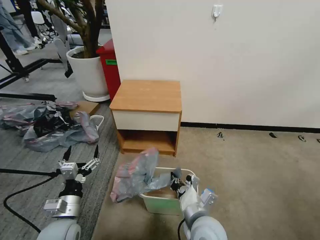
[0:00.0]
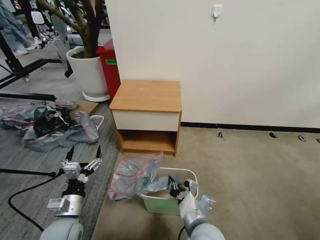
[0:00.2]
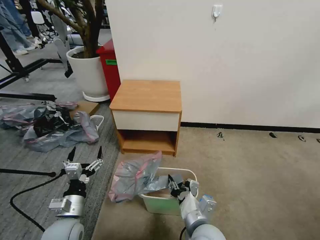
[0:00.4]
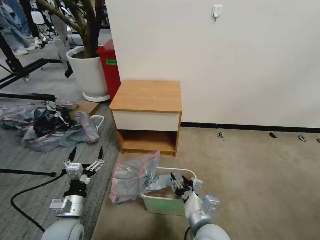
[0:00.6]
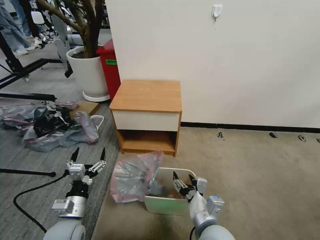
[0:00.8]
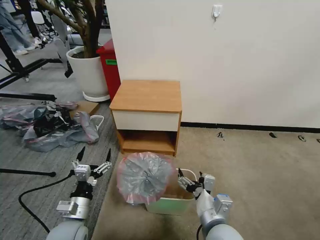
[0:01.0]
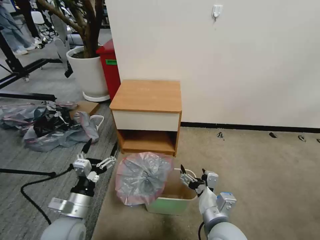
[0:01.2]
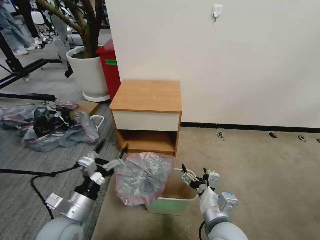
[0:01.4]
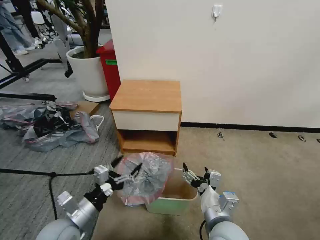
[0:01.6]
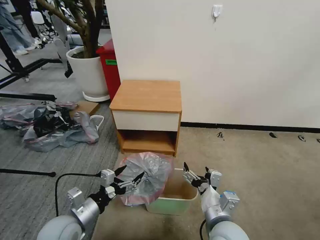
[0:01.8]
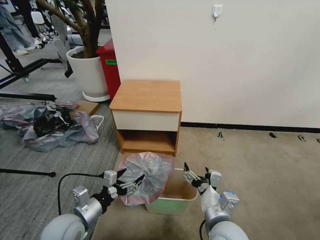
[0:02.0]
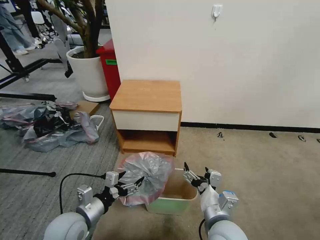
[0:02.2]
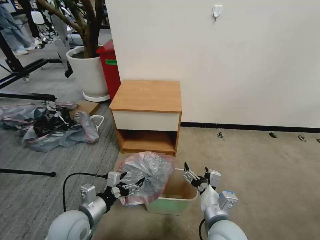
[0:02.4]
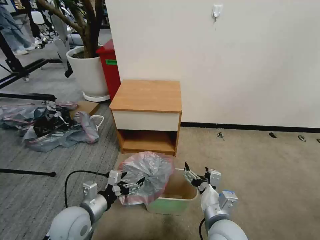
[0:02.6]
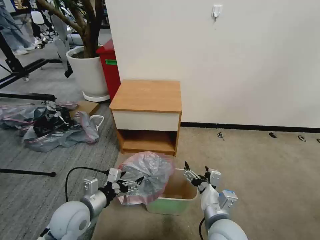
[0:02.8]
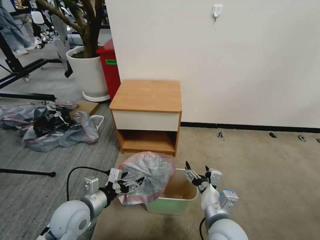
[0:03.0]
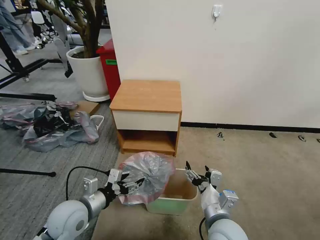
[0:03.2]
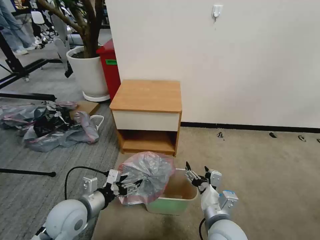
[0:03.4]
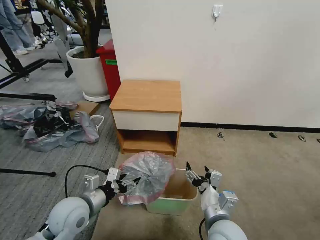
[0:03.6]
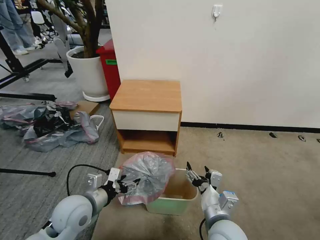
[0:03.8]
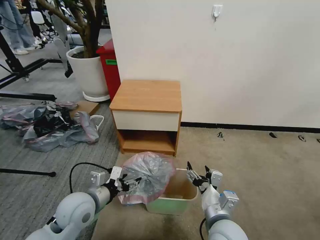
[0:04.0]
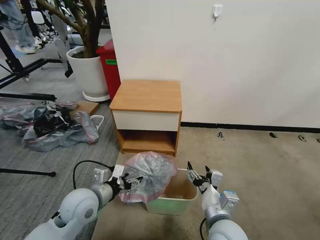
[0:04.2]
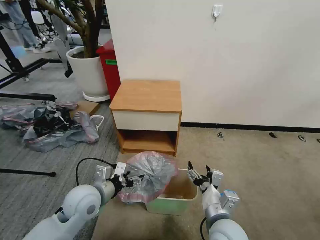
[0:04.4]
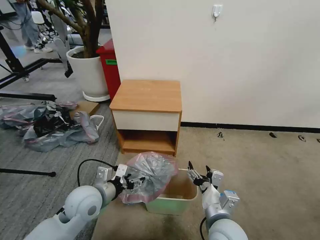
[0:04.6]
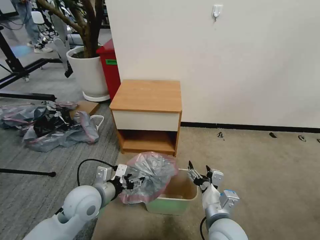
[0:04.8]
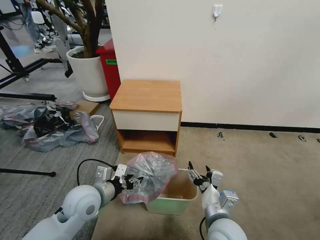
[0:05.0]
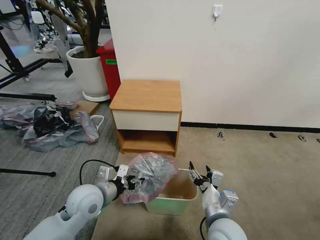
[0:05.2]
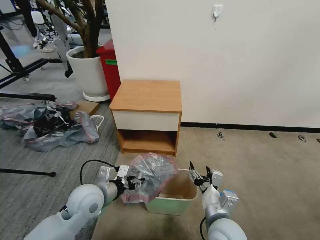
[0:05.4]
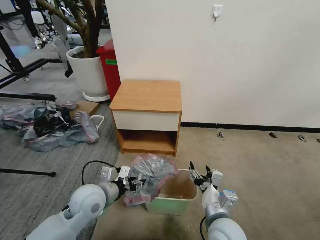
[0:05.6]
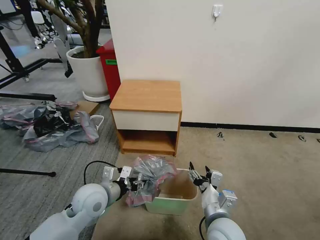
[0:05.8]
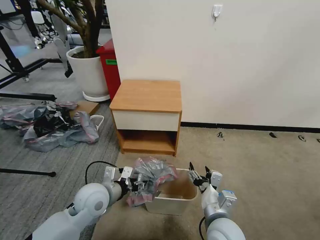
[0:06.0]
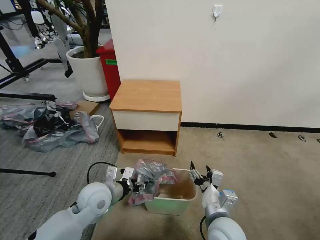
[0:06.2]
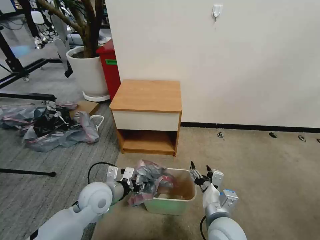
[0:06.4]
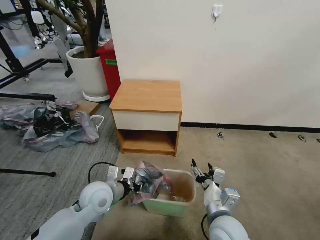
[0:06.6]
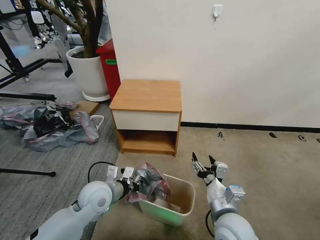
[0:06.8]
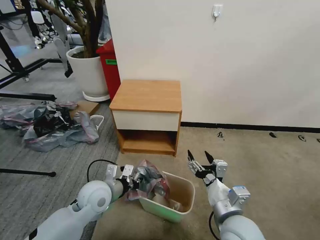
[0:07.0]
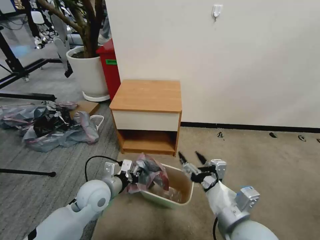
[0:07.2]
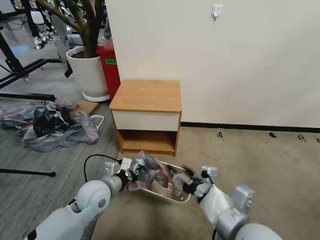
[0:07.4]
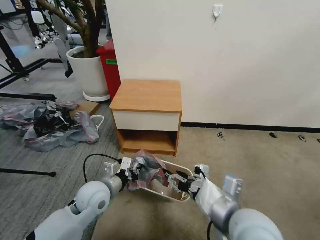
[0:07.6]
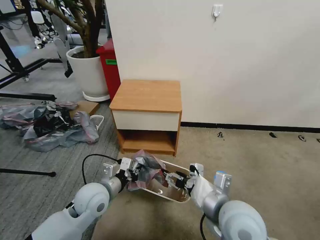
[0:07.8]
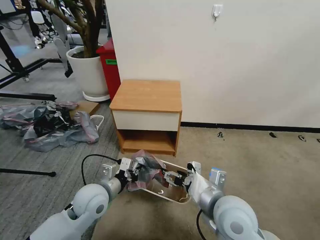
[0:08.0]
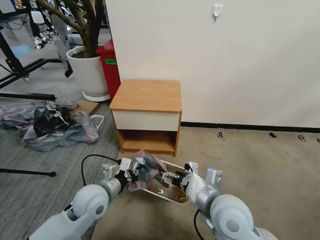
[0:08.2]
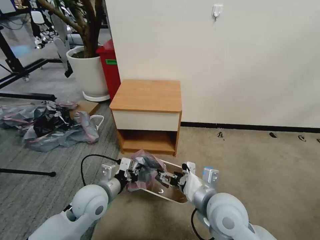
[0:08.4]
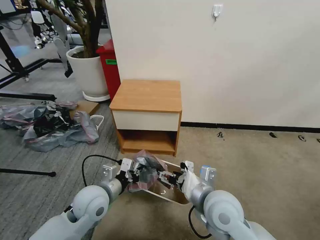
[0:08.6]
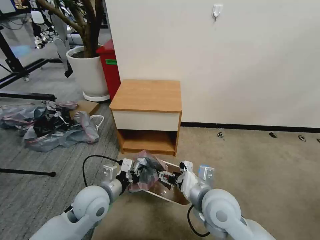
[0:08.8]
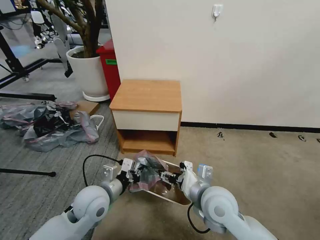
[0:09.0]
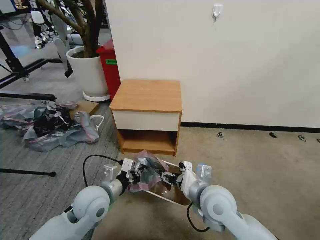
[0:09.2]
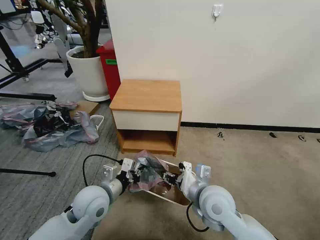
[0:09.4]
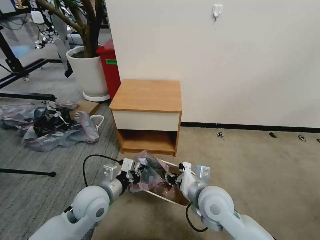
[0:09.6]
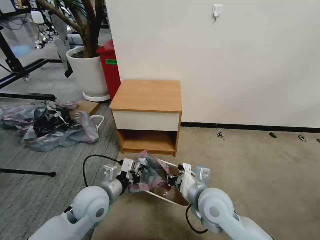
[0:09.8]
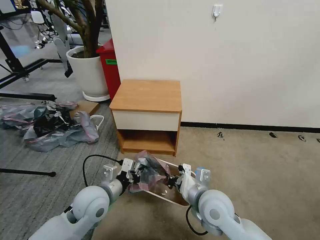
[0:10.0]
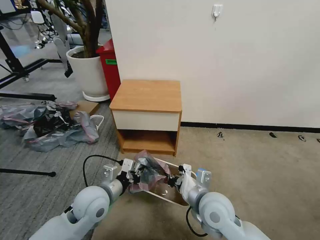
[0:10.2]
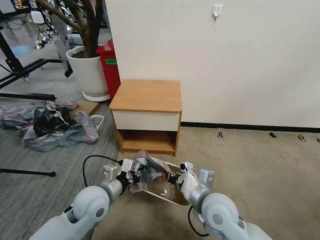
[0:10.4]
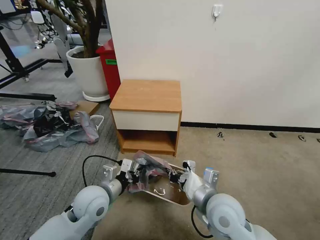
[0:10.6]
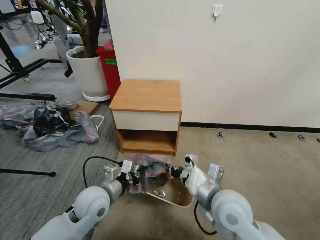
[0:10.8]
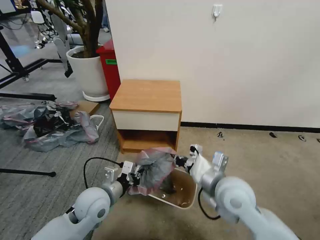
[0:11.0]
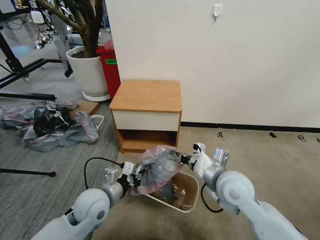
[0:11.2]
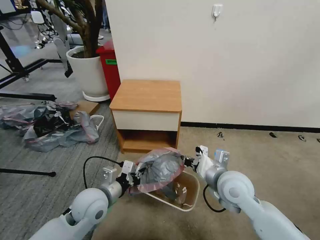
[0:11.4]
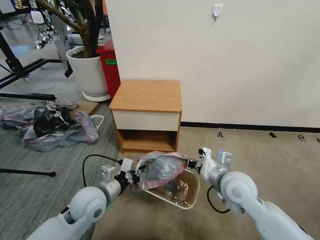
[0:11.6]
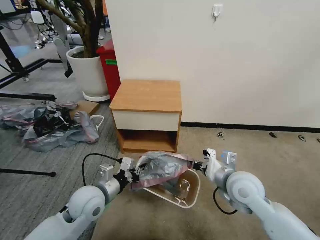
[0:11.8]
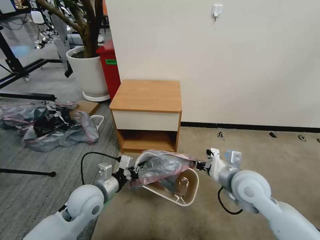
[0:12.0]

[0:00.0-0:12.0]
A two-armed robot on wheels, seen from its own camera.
Task of the whole recording: Pick up the garbage bag from the table and place it over the trash can.
0:00.0 to 0:01.6: The right gripper ends up some 5 cm from where it was, and opens up.
0:03.0 to 0:04.4: The left gripper changes place by some 5 cm.
0:04.4 to 0:06.0: The grippers stay close to where they were, moving slightly.
0:06.0 to 0:07.6: The left gripper closes its fingers, while the right gripper heads upward, covering approximately 15 cm.
0:07.6 to 0:09.0: The right gripper moves forward and downward, approximately 10 cm.
0:09.0 to 0:10.4: The right gripper closes up.
0:10.4 to 0:12.0: The right gripper is displaced to the right and forward by approximately 10 cm.

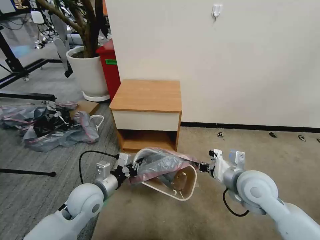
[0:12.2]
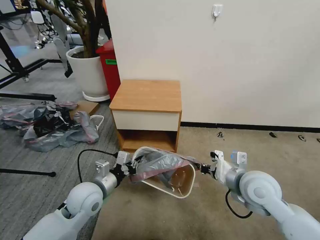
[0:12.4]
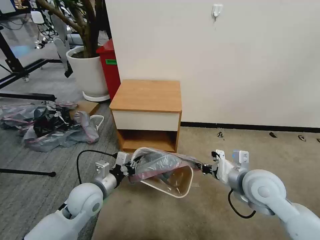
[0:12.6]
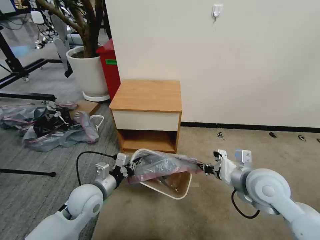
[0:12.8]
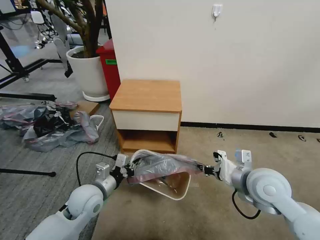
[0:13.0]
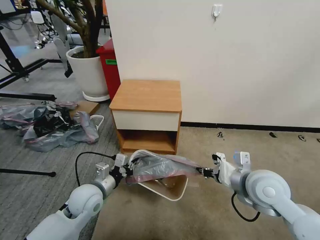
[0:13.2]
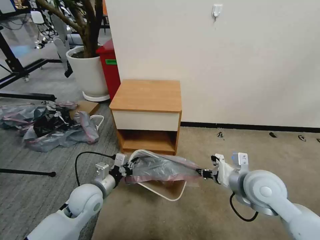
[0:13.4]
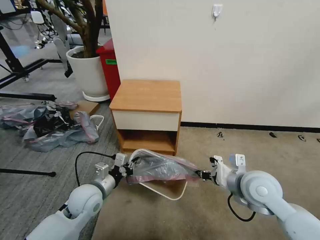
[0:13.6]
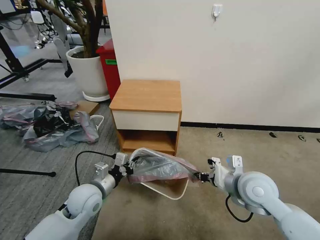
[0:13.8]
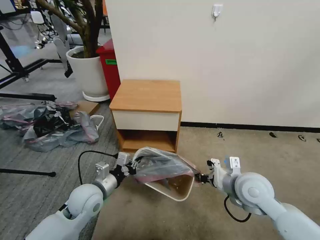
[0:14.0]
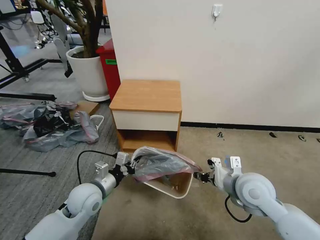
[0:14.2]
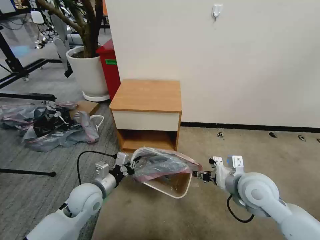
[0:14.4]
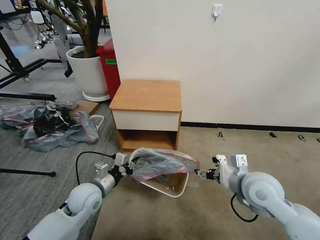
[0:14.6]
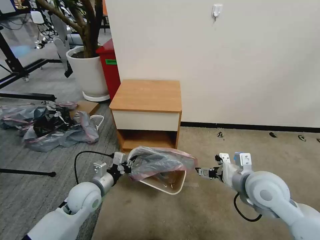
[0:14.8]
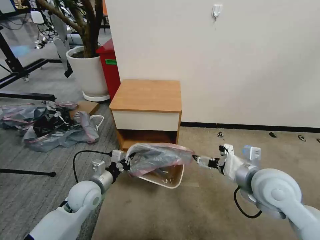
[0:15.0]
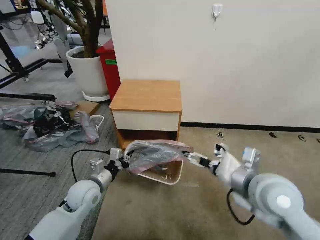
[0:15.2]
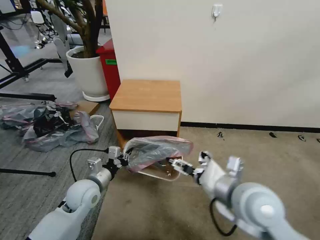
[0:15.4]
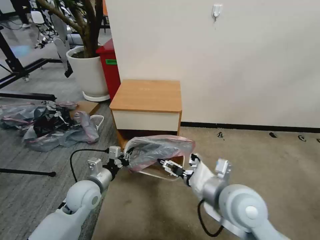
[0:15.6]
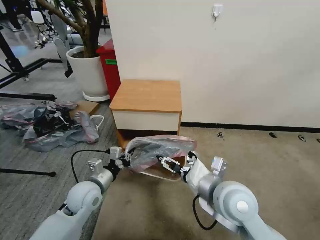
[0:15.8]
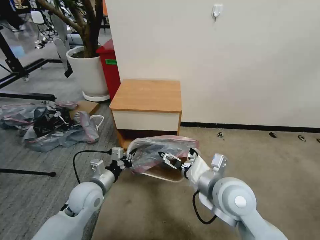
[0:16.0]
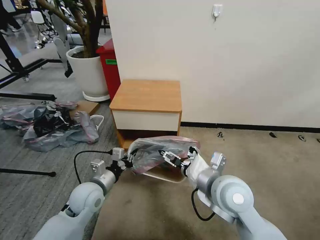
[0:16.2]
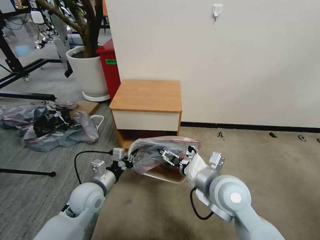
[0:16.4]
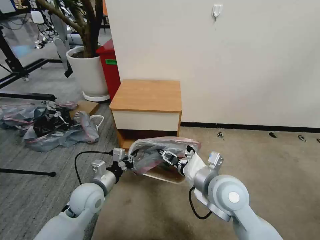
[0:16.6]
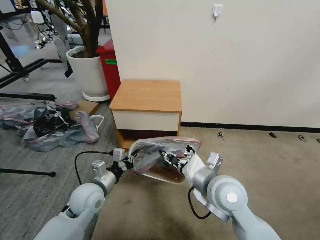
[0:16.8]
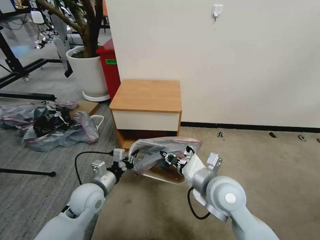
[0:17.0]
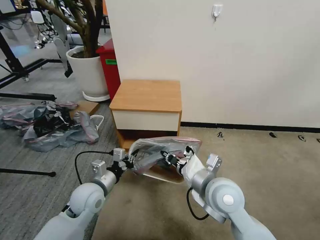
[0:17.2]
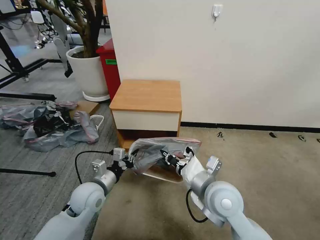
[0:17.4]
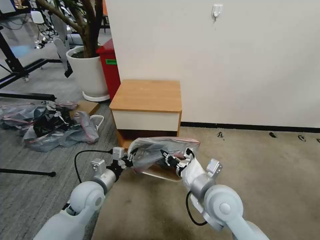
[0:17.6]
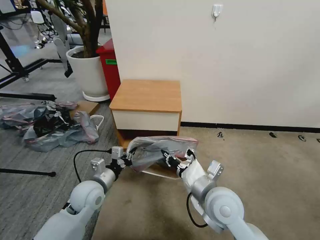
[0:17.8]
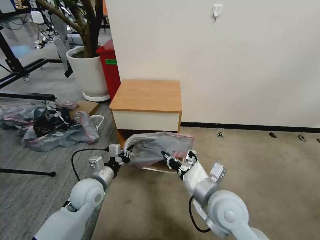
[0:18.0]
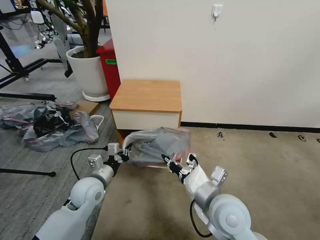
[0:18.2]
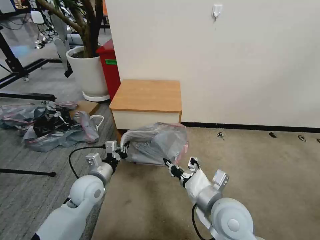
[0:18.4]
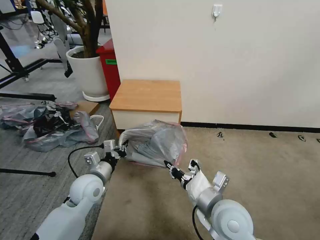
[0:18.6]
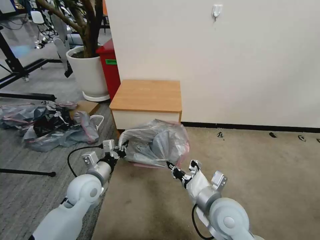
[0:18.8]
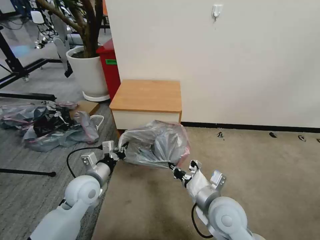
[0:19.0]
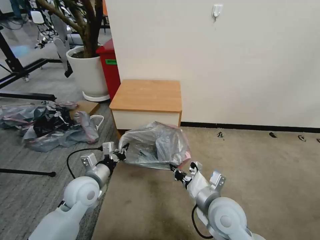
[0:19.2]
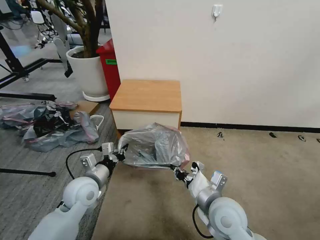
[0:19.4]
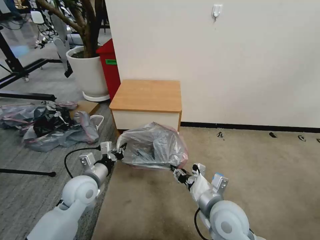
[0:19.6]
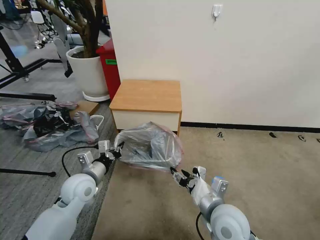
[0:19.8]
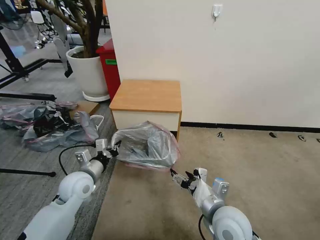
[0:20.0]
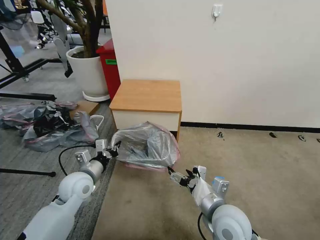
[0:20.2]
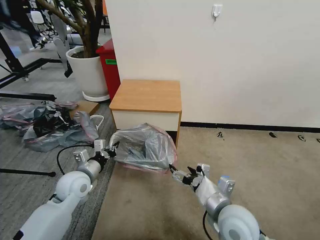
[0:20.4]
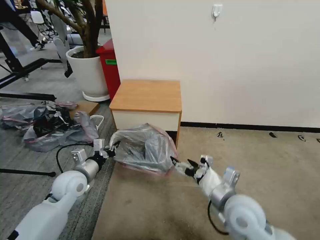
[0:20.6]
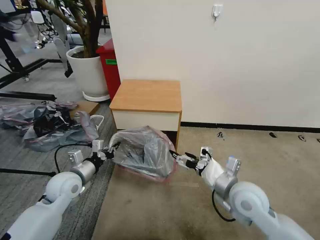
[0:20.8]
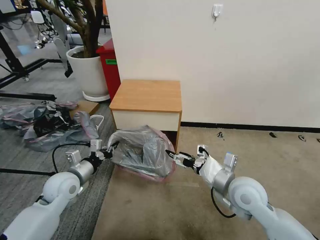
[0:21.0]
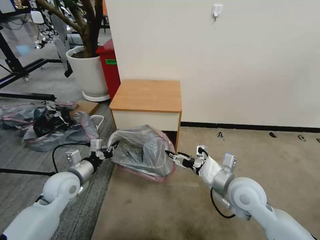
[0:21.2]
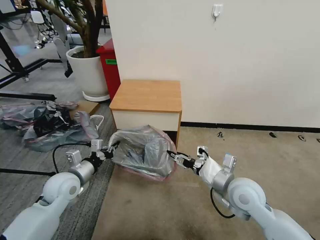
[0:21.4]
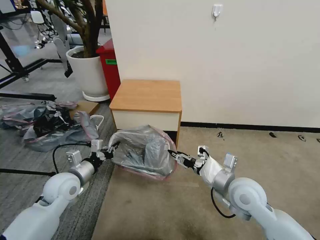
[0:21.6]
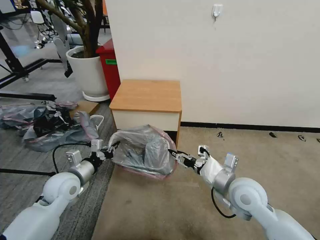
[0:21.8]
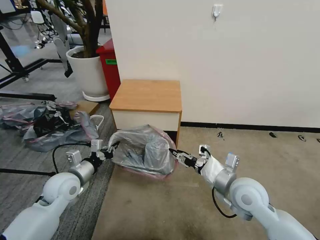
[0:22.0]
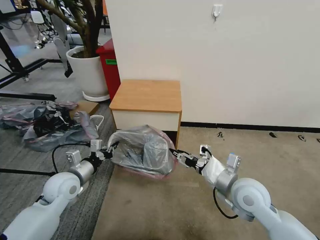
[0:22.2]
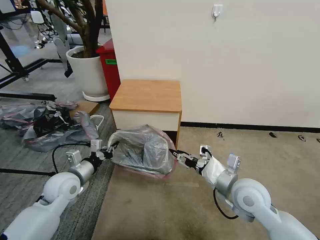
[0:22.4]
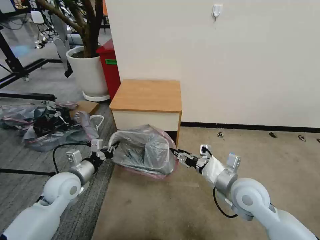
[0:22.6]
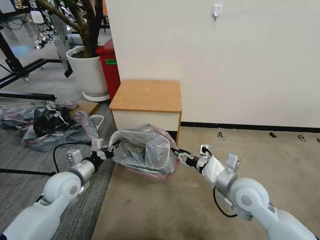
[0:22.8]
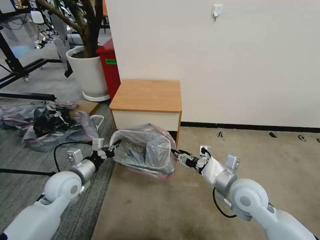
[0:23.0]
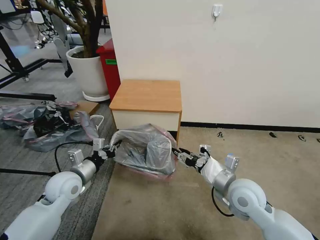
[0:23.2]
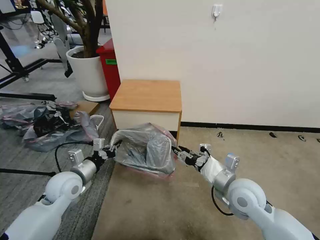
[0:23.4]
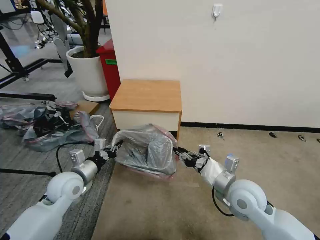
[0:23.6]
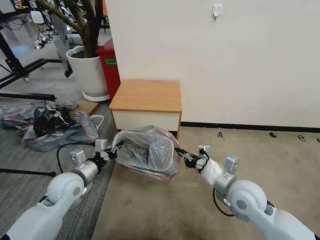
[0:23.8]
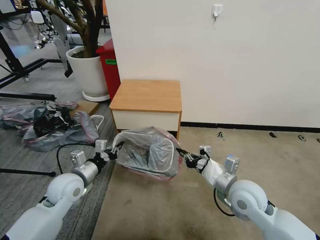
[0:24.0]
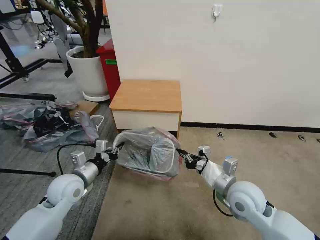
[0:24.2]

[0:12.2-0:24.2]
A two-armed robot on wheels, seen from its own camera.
Task of the whole recording: Pick up the garbage bag from the table and place it over the trash can.
0:12.2 to 0:13.8: There are only small adjustments of the grippers.
0:13.8 to 0:15.2: The right gripper heads upward, covering roughly 5 cm, and opens its fingers.
0:15.2 to 0:16.6: The right gripper shifts approximately 10 cm to the left, and closes its fingers.
0:16.6 to 0:18.2: The right gripper closes up.
0:18.2 to 0:19.8: The right gripper opens its fingers.
0:19.8 to 0:21.2: The left gripper travels to the left by approximately 5 cm. Meanwhile the right gripper shifts roughly 10 cm forward and to the right.
0:21.2 to 0:22.6: The two grippers keep their place.
0:22.6 to 0:24.2: The right gripper closes.
